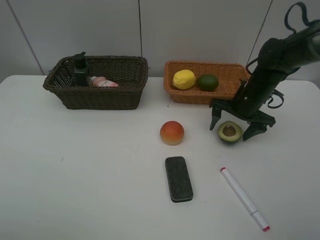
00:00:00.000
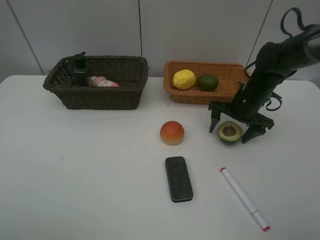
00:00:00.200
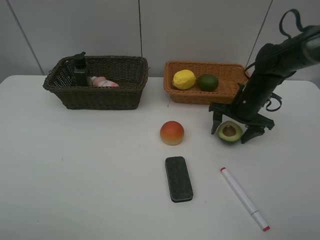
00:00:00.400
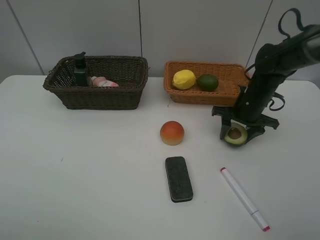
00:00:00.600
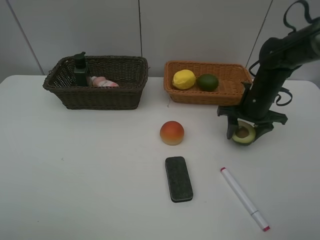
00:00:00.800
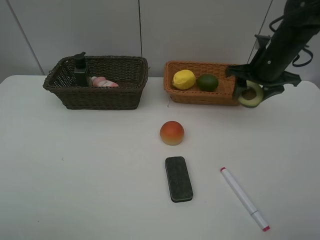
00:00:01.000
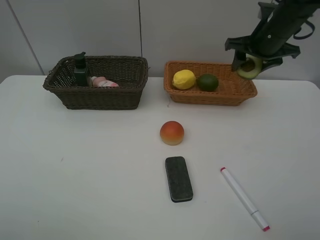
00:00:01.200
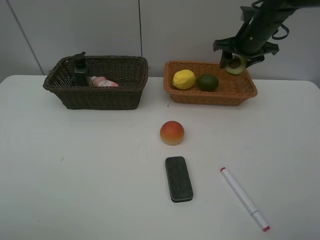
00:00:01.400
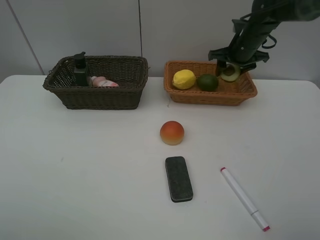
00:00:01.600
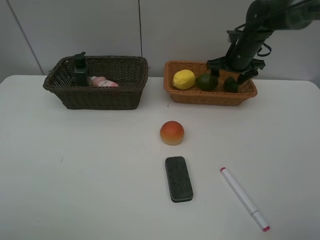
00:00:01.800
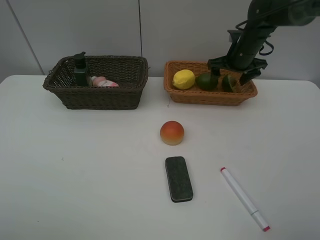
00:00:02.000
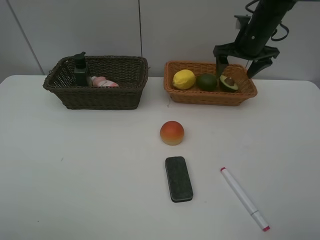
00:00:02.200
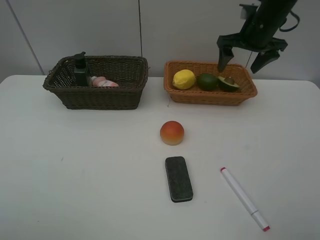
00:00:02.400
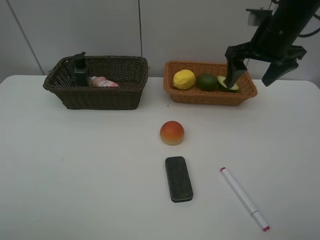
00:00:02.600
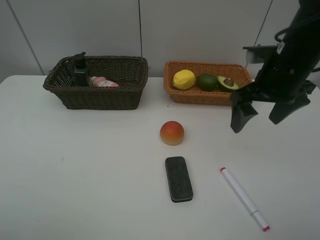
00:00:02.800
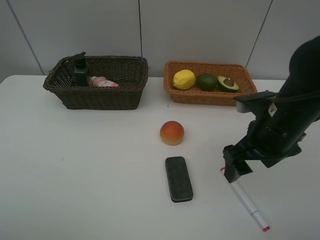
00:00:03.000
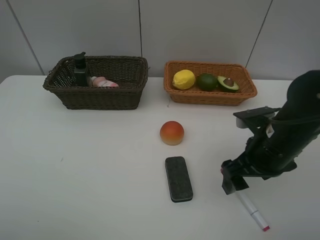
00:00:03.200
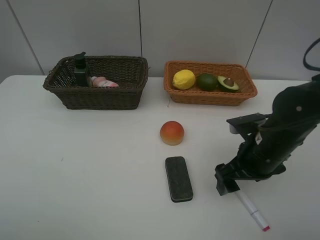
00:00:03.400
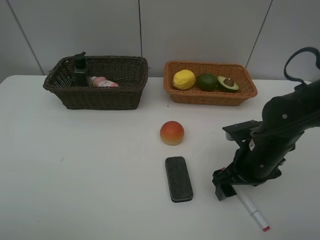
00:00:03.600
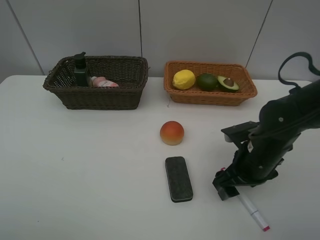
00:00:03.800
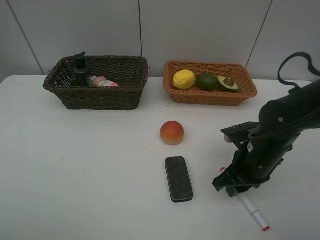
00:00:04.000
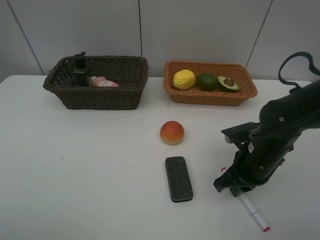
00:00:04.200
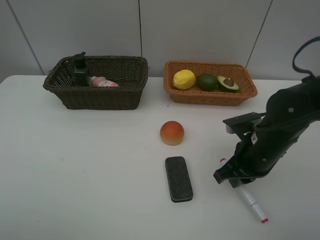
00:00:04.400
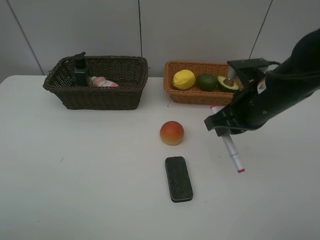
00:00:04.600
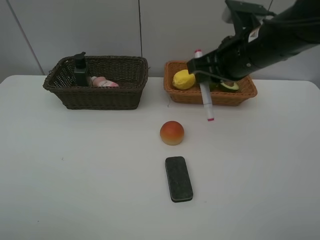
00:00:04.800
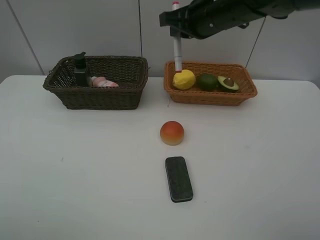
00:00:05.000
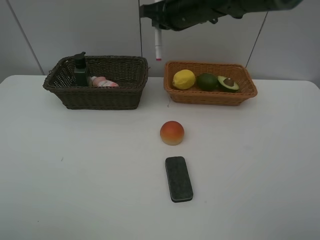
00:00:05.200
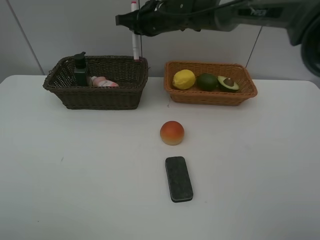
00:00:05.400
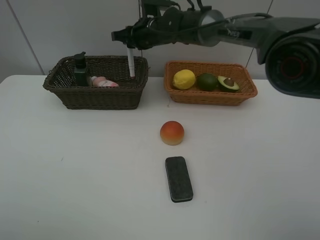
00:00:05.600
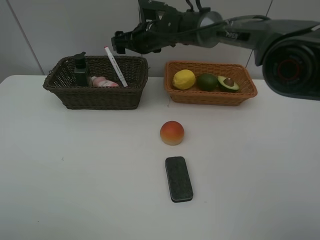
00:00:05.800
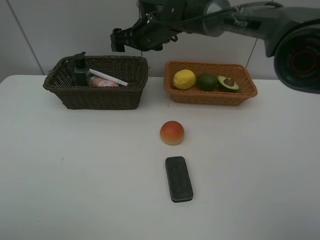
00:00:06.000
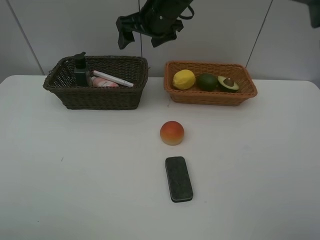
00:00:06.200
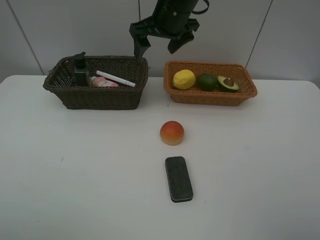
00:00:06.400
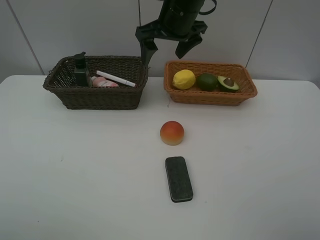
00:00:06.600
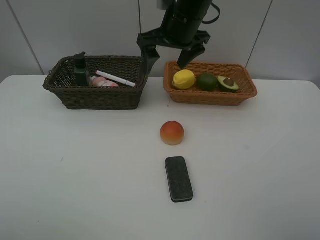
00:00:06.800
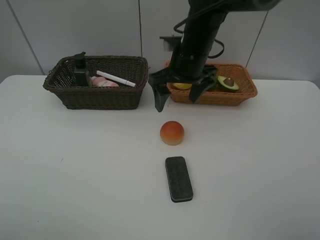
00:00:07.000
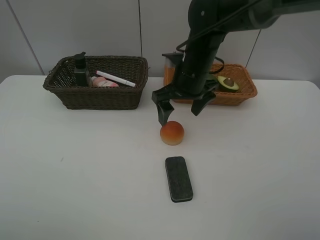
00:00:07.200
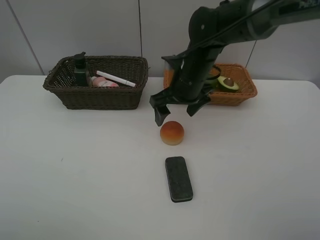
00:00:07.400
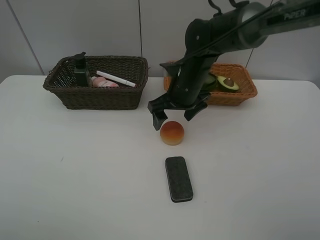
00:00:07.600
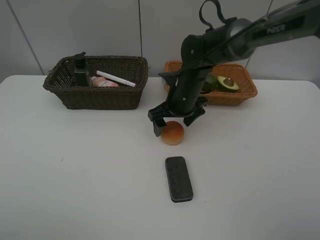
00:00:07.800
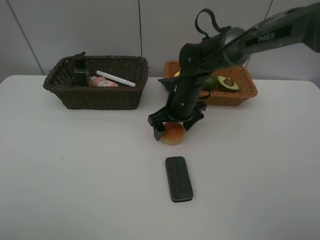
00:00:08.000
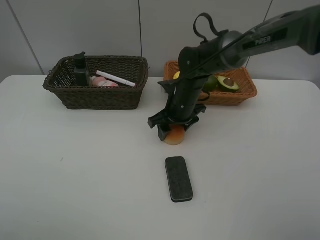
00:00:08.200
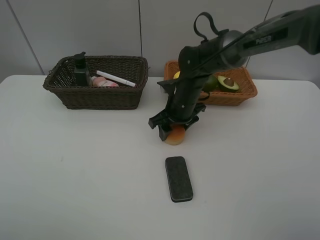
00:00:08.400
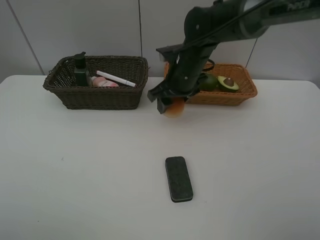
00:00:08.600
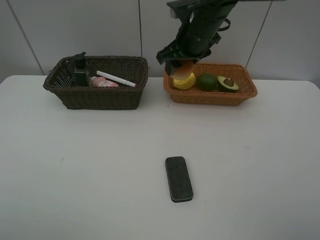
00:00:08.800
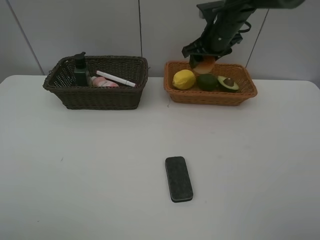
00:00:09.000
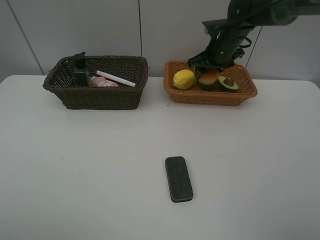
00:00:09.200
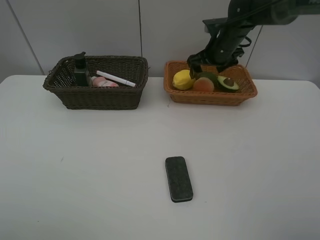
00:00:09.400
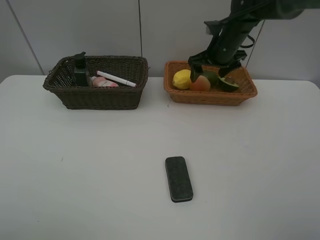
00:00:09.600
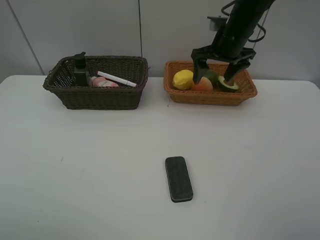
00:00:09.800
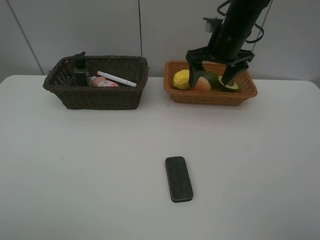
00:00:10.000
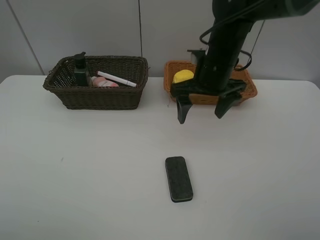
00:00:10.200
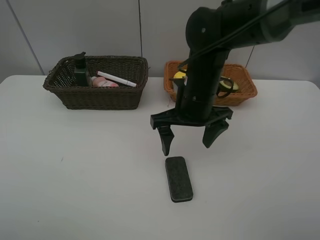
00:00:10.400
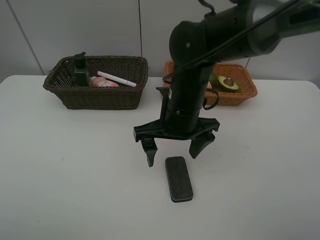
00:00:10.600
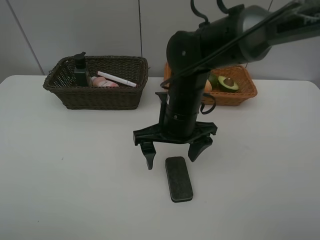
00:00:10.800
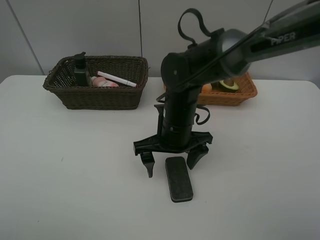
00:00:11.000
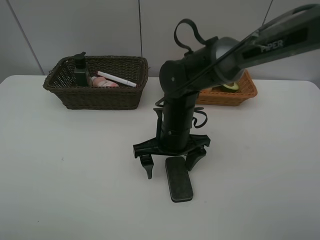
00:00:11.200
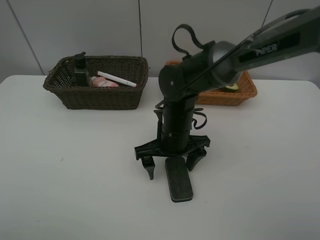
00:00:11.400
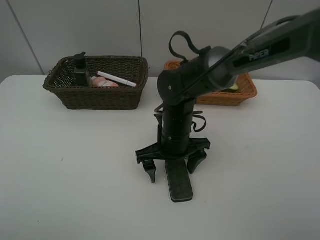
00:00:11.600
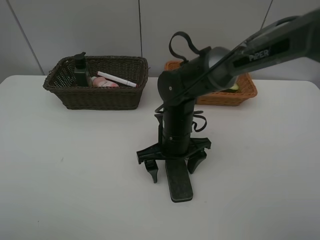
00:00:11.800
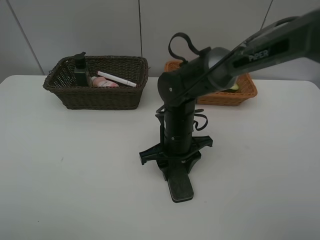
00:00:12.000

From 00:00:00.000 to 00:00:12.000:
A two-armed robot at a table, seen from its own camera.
Task of the whole recording: Place multiple objects separately in different baskets.
Step, from 00:00:01.000 to 00:00:02.000: Place the avocado in the light basket with right gripper.
Step, from 00:00:02.200 to 00:00:04.400: Pick up the red marker with right gripper.
Step, from 00:00:04.600 to 00:00:05.800: Place the red marker in the dark basket with right gripper.
Step, from 00:00:06.000 to 00:00:08.400: Pick up egg yolk pastry with right gripper.
Step, from 00:00:08.600 to 00:00:09.600: Place the egg yolk pastry in the light basket with right gripper.
From 00:00:00.000 to 00:00:01.600: The right gripper shifts about 15 cm forward and upward, and closes its fingers.
From 00:00:01.600 to 00:00:03.000: The right gripper heads backward, covering approximately 25 cm, and opens up.
From 00:00:03.000 to 00:00:04.400: The right gripper closes its fingers.
From 00:00:04.400 to 00:00:06.000: The right gripper heads forward and to the left, covering approximately 30 cm, and opens its fingers.
From 00:00:06.000 to 00:00:07.600: The right gripper goes about 15 cm backward, to the right and downward.
From 00:00:07.600 to 00:00:09.000: The right gripper goes up and down, about 15 cm each way, reversing 2 times, and closes its fingers.
From 00:00:09.000 to 00:00:10.400: The right gripper is displaced backward and to the left by some 20 cm, and opens up.
From 00:00:10.400 to 00:00:12.000: The right gripper shifts about 10 cm downward, and closes its fingers.

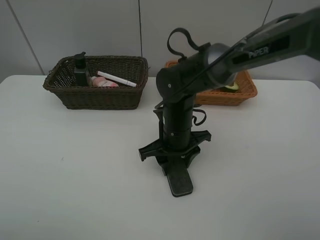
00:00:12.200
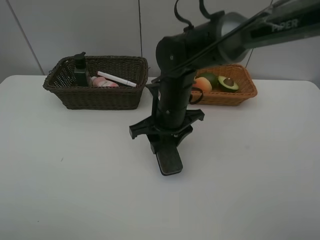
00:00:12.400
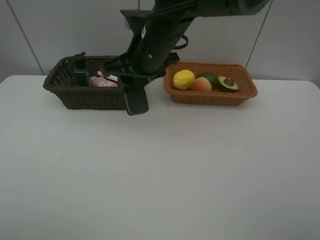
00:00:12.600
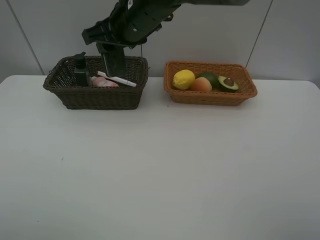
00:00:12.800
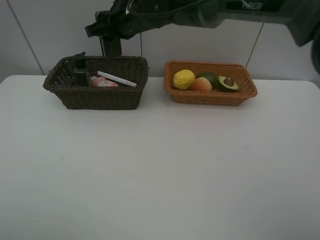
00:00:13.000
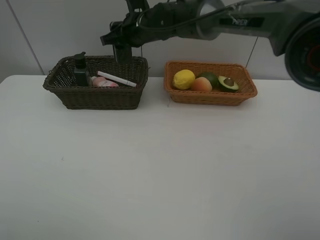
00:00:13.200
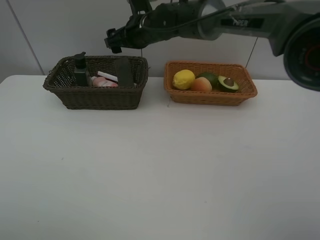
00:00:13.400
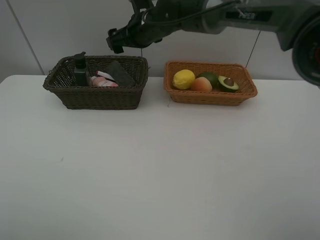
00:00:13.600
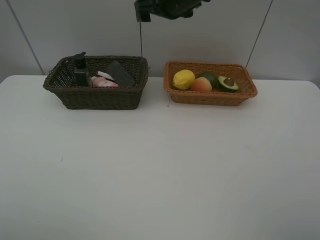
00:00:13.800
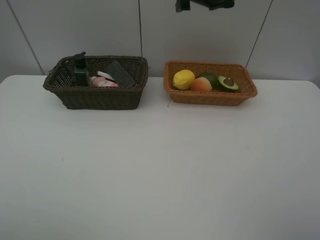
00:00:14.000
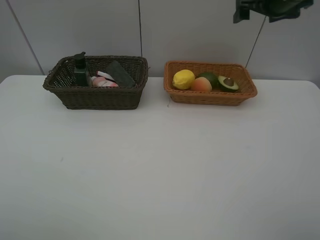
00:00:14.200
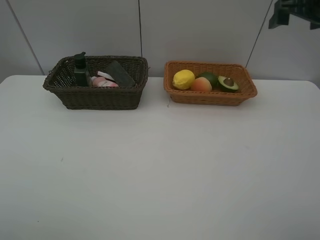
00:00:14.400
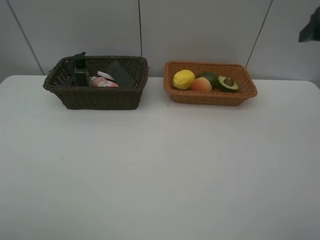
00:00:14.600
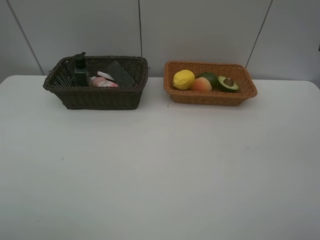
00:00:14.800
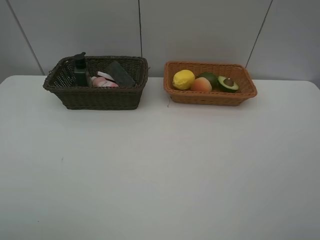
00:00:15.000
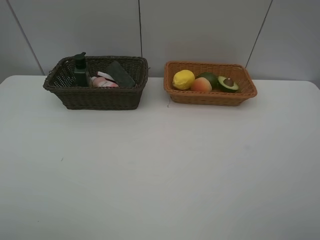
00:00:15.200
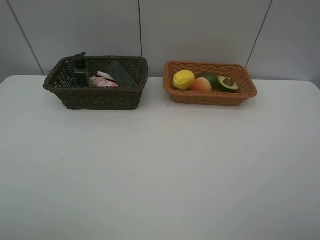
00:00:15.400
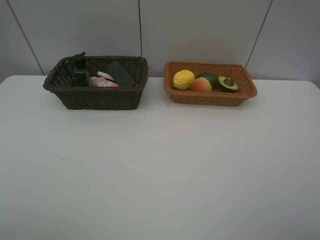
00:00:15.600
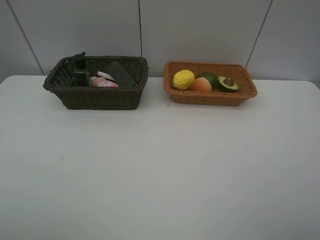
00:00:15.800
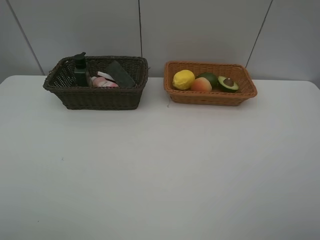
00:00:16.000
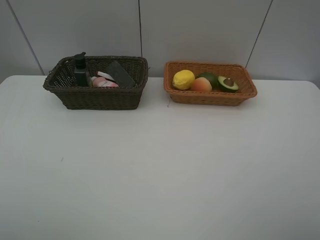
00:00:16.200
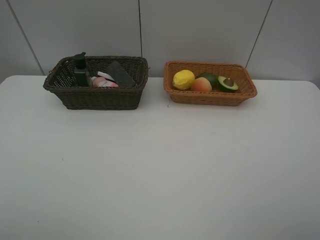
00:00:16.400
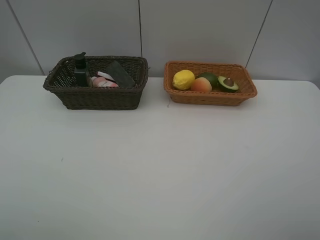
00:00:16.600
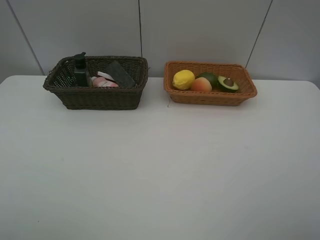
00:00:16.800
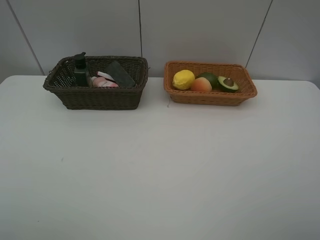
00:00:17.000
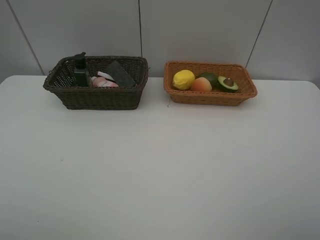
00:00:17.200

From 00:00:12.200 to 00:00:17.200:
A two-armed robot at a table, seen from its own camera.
Task of the whole recording: Place multiple objects separately in different baskets.
Step, from 00:00:12.600 to 00:00:13.400: Place the blackboard eraser in the dark basket with right gripper.
From 00:00:12.200 to 00:00:13.800: The right gripper goes up and down, some 20 cm each way, reversing 2 times, and opens.
From 00:00:13.800 to 00:00:15.600: The right gripper goes about 50 cm backward and to the right.
From 00:00:15.600 to 00:00:17.200: Both grippers stay about where they are.
